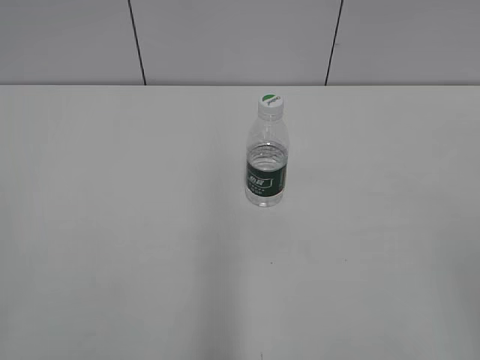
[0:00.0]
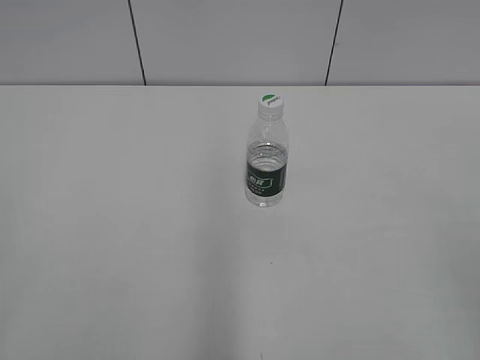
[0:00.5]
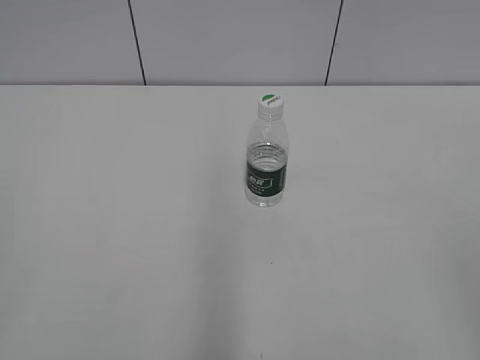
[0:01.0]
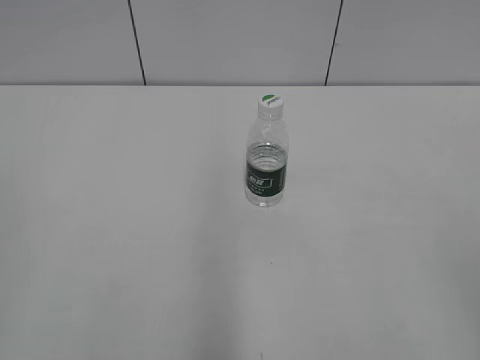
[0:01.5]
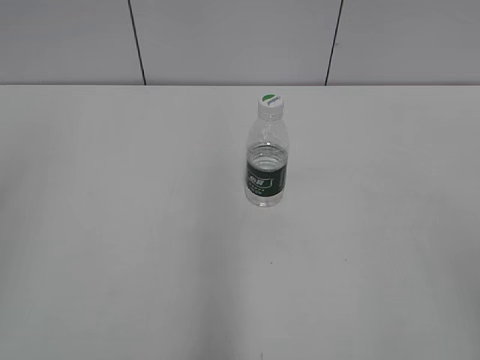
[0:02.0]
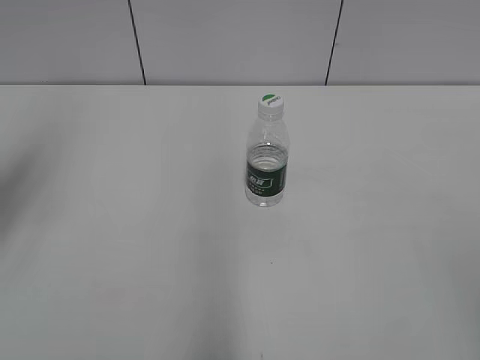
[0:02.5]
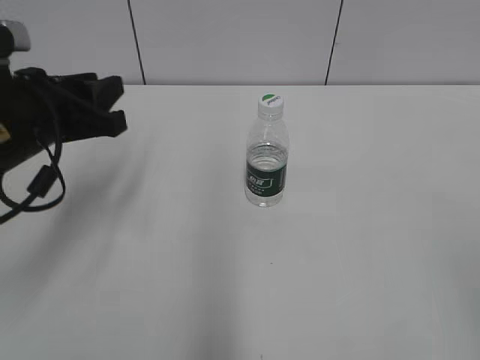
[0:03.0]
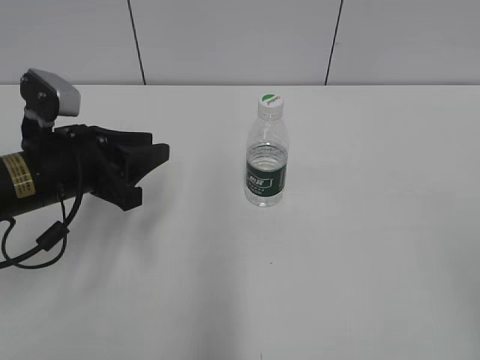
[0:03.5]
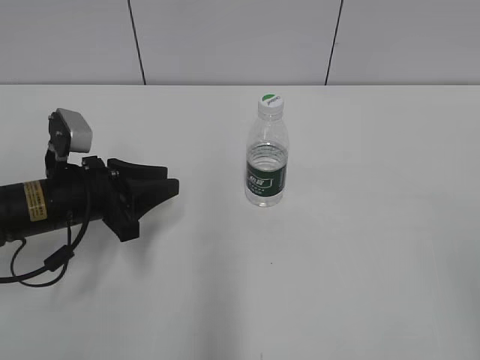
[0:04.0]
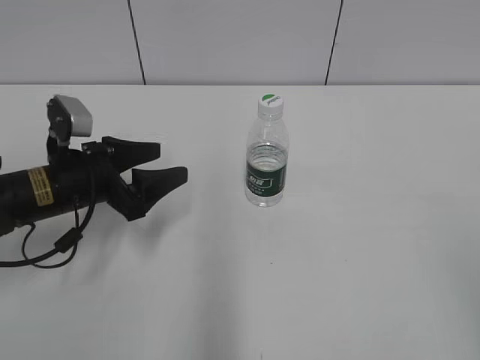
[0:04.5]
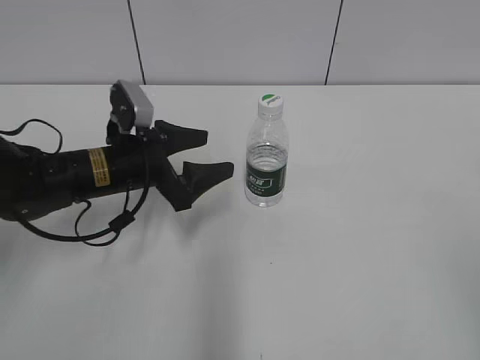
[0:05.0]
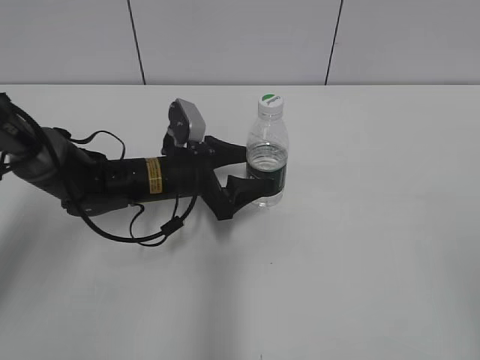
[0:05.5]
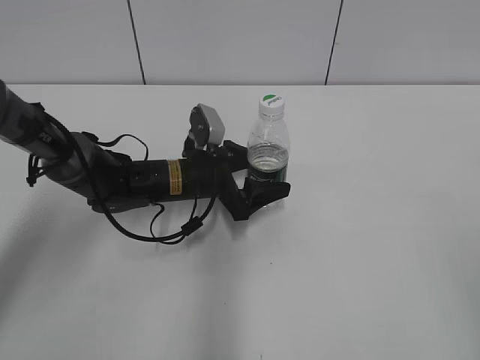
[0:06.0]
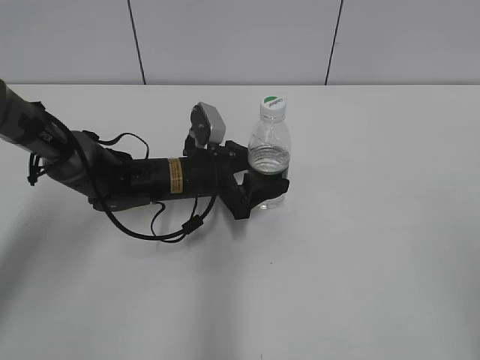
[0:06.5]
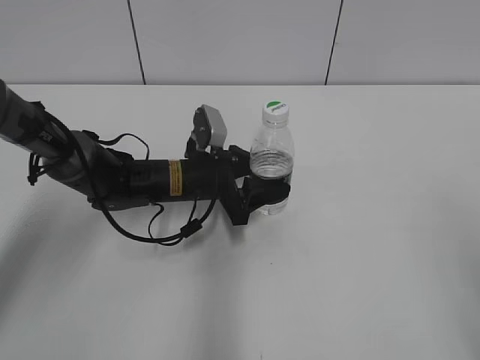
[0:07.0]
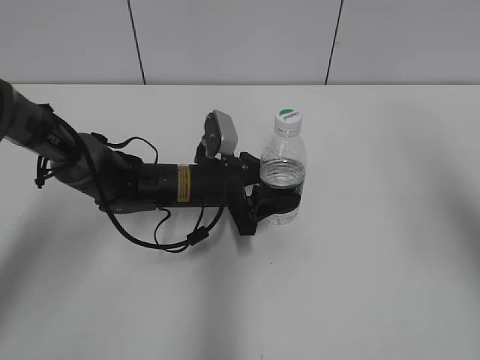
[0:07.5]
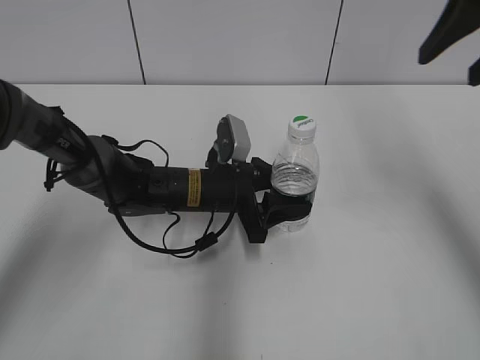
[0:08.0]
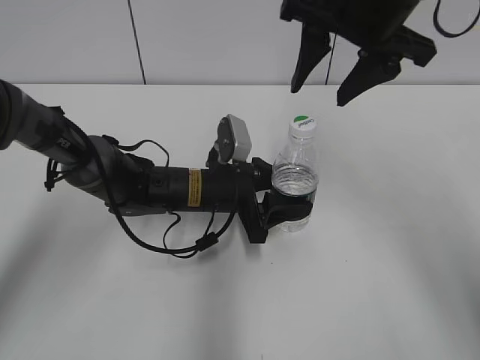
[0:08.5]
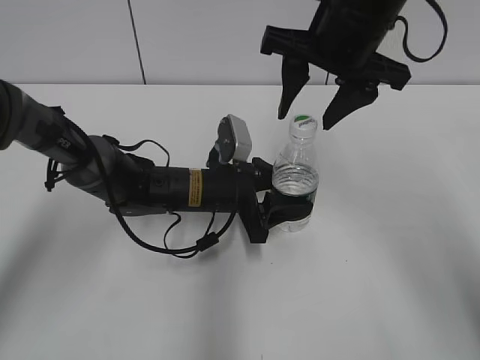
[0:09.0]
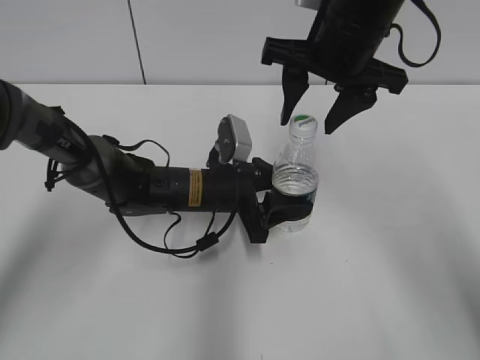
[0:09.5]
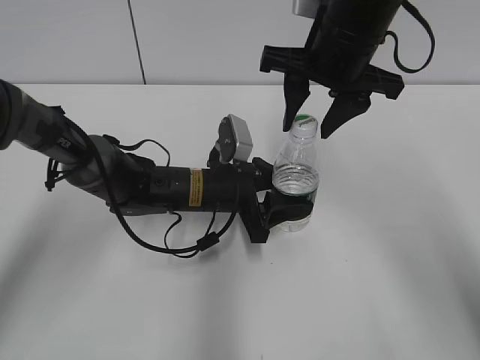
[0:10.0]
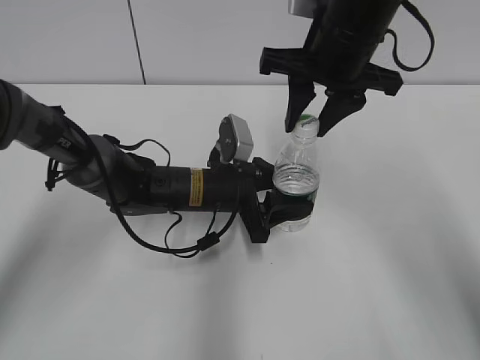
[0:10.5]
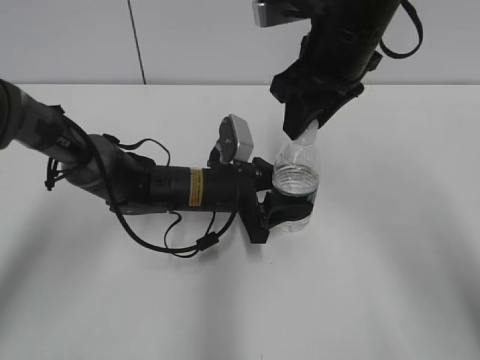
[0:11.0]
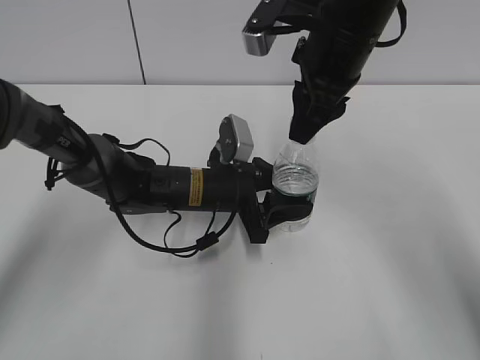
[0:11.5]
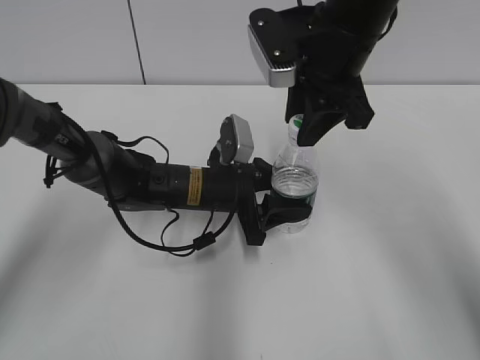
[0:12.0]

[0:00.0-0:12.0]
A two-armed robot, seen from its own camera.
Step, 0:00.0 to 0:07.5: Grasp the bottle and move it to the center of the table with the left gripper.
0:02.0 to 0:04.0: The left gripper heads downward and forward, covering approximately 35 cm.
0:04.0 to 0:06.0: The left gripper travels to the right, forward and downward by about 15 cm, and opens its fingers.
0:06.0 to 0:08.0: The left gripper closes its fingers. The right gripper shifts some 30 cm forward.
0:08.0 to 0:10.0: The right gripper travels to the left, downward and forward by about 20 cm.
0:10.0 to 0:12.0: The right gripper closes its fingers.

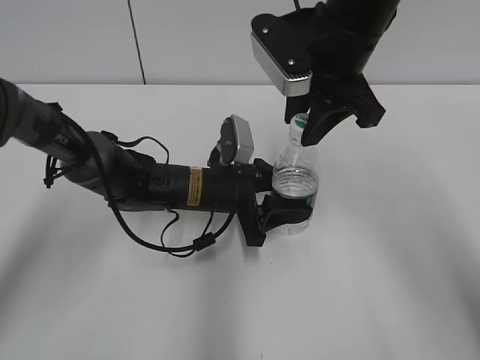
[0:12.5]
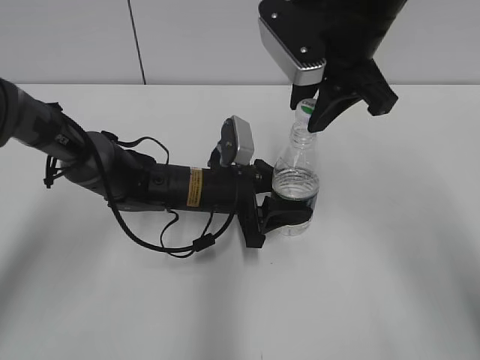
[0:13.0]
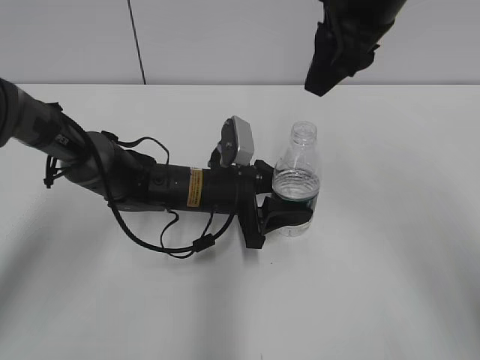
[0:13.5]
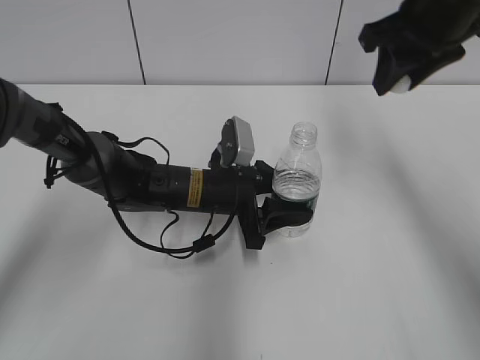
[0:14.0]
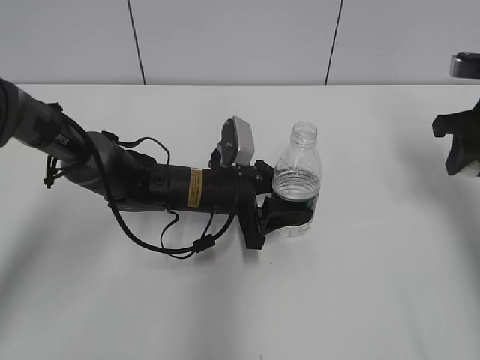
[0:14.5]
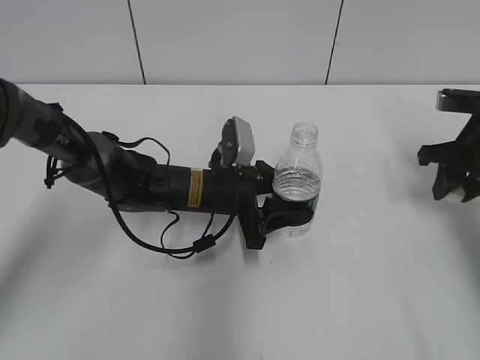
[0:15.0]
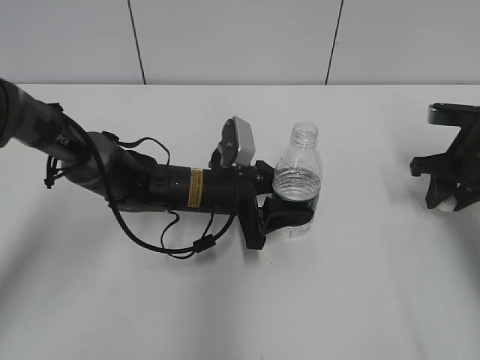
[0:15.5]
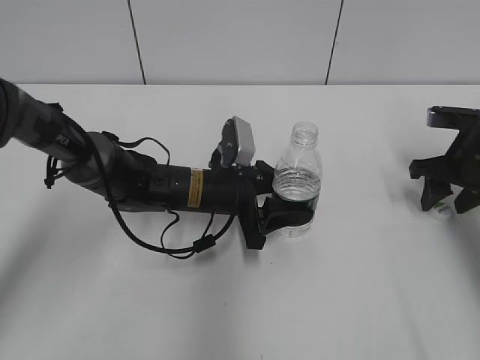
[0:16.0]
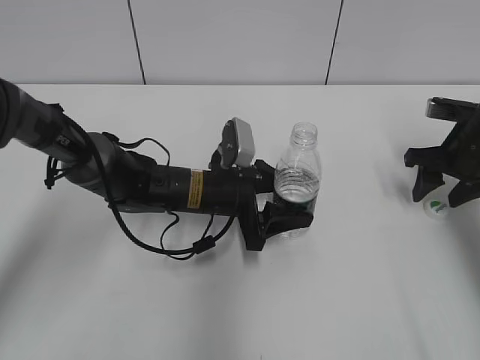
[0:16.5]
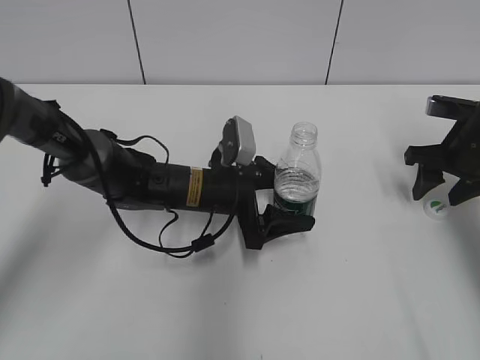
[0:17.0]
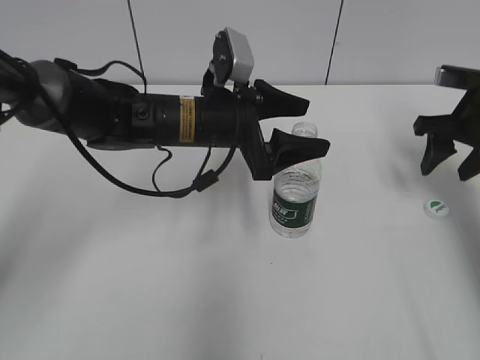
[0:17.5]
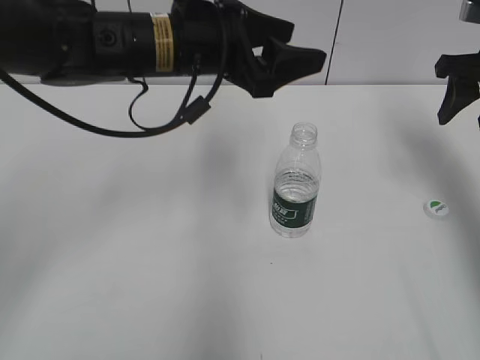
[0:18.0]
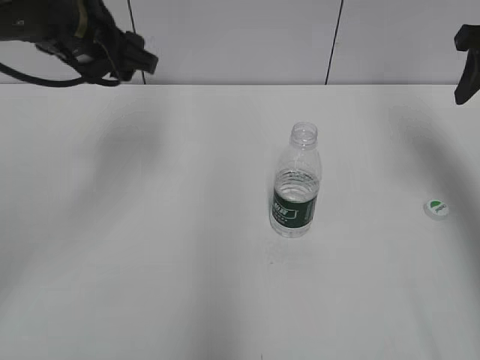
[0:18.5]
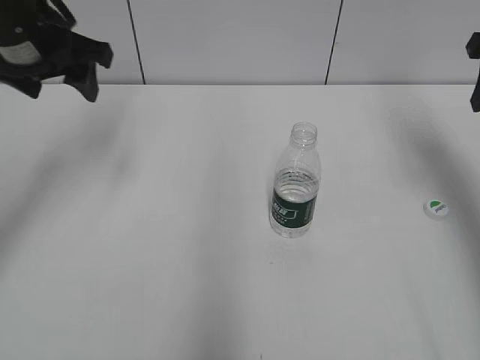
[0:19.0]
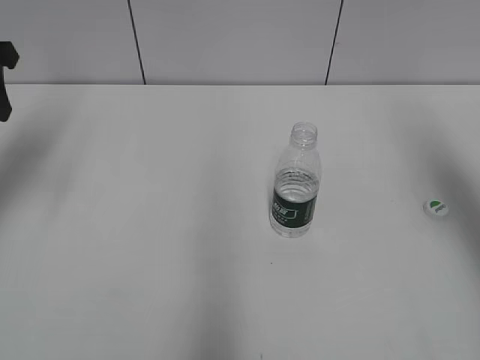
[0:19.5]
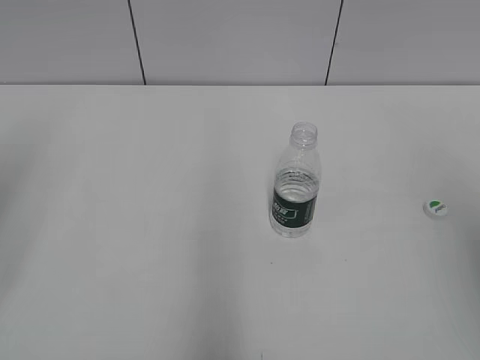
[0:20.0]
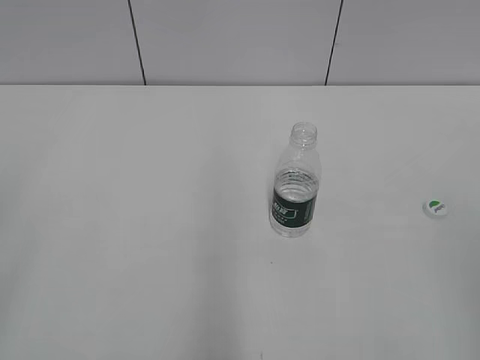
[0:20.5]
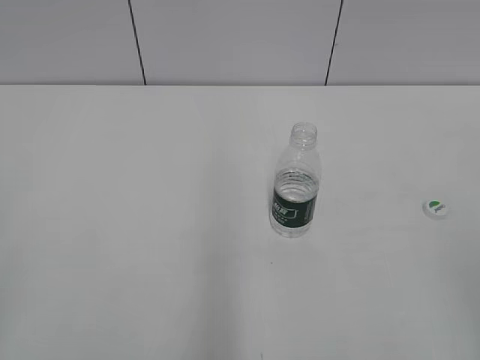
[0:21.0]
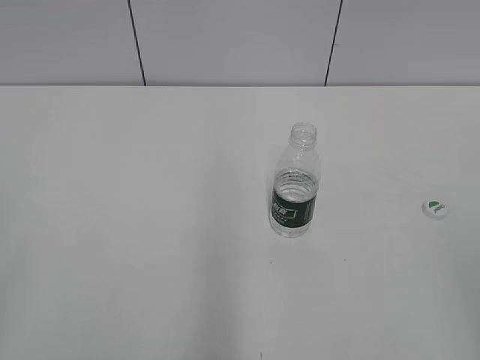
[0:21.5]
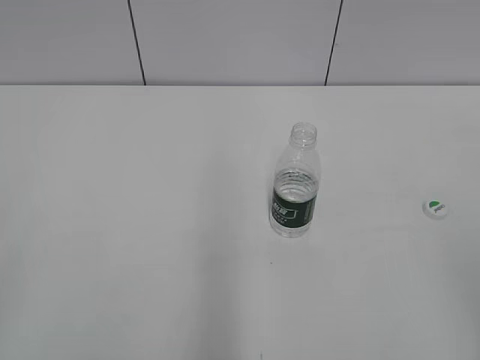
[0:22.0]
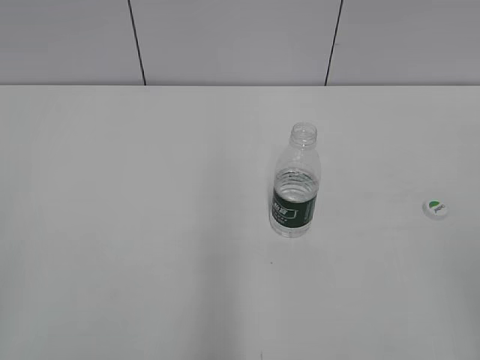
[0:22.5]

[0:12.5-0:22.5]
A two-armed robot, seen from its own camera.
Step, 0:14.0 to 0:16.5: Place the bottle cap on the table with the right gripper.
Step, 0:17.0 to 0:17.5: Place the bottle on the table with the left gripper.
0:12.5 to 0:14.5: The right gripper heads to the right, covering some 20 cm.
0:14.5 to 0:16.5: The right gripper shifts roughly 10 cm downward, and opens up.
0:16.5 to 0:18.5: The left gripper goes about 25 cm upward and to the left. Meanwhile the right gripper shifts approximately 15 cm upward.
0:18.5 to 0:20.5: The right gripper travels backward by some 35 cm. Meanwhile the left gripper heads backward and to the left, covering roughly 35 cm.

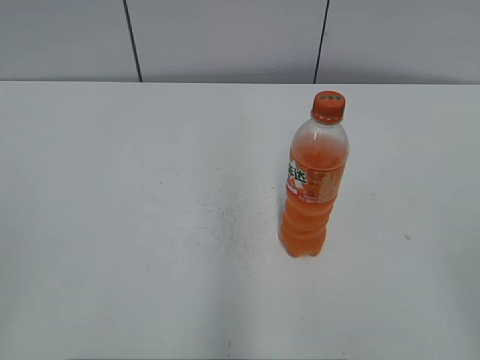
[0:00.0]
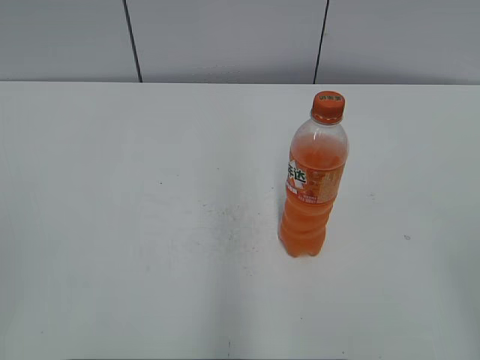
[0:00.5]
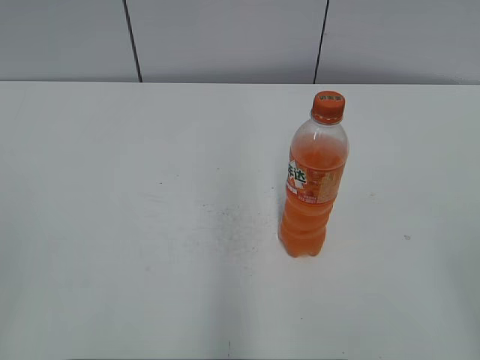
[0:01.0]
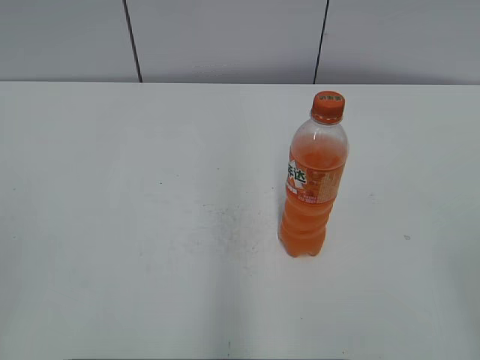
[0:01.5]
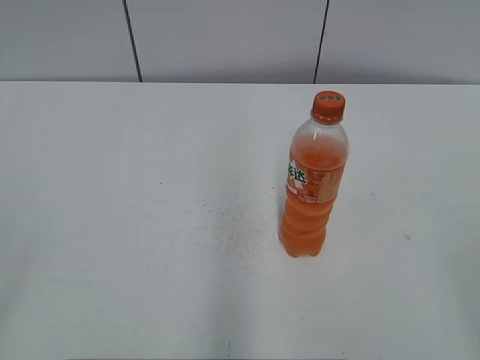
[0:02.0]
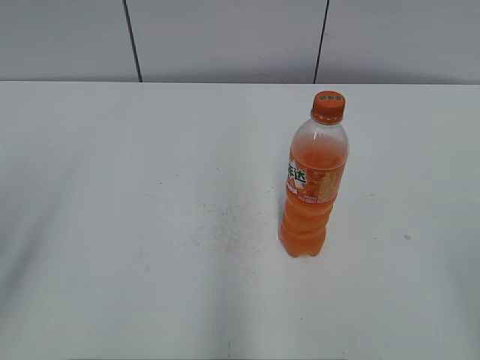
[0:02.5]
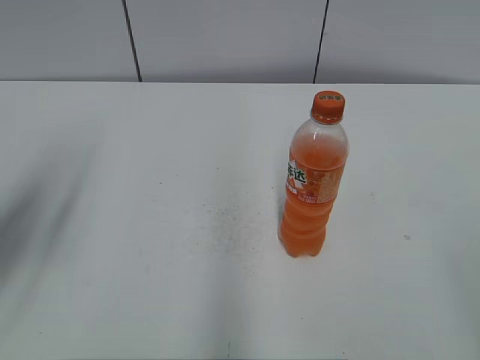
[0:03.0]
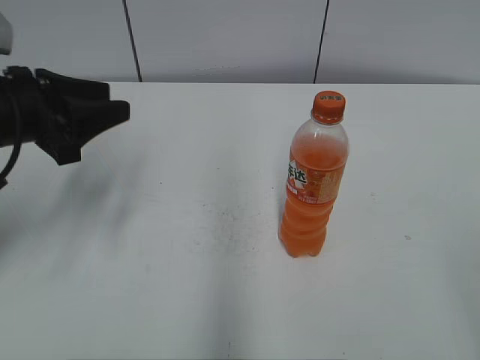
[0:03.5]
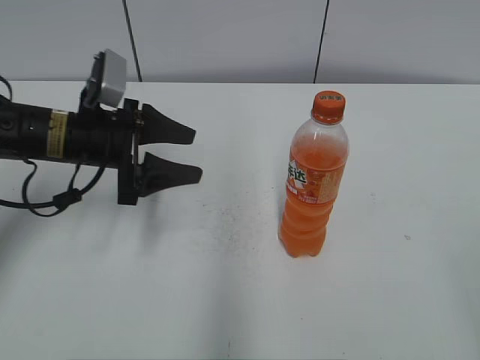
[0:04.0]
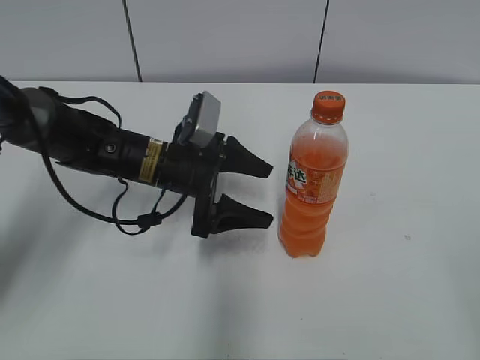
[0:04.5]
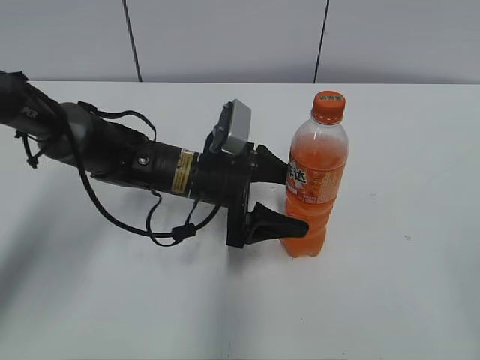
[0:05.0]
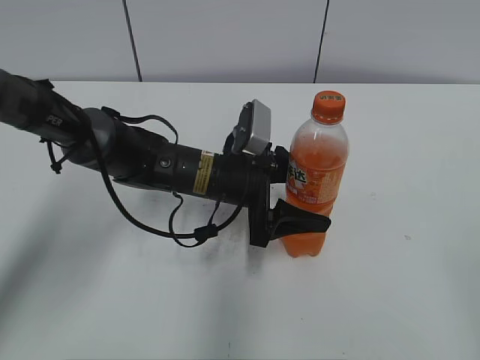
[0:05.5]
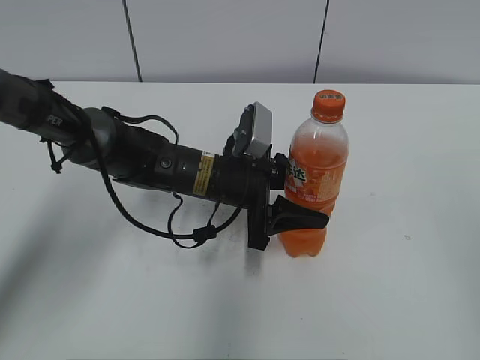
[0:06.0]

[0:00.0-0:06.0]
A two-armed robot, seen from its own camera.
Step, 0:00.0 to 0:05.5: Grab the Mirinda with the left hand.
0:02.0 to 0:04.0: The left gripper is displaced forward and downward by approximately 35 cm.
0:04.0 to 0:06.0: The left gripper goes approximately 15 cm to the right.
